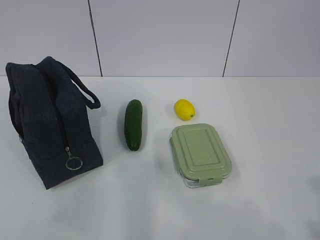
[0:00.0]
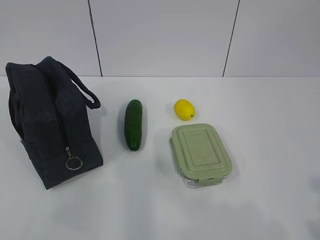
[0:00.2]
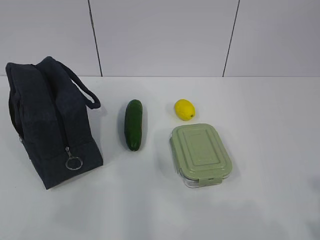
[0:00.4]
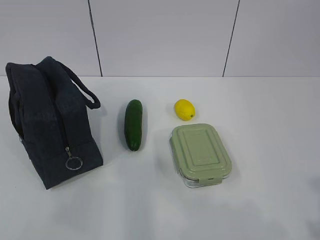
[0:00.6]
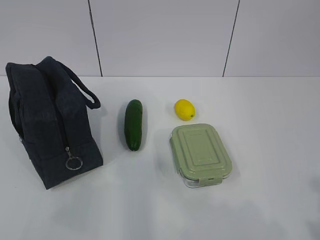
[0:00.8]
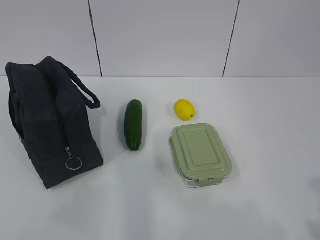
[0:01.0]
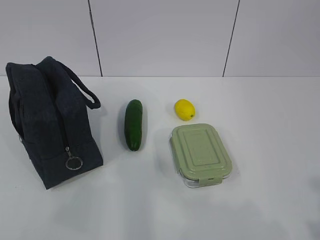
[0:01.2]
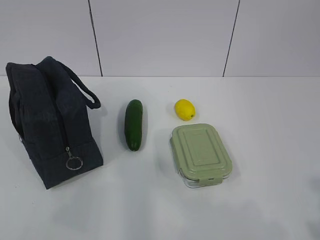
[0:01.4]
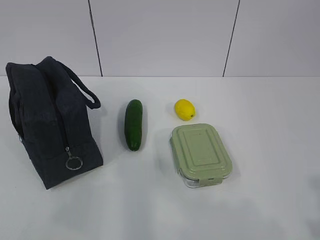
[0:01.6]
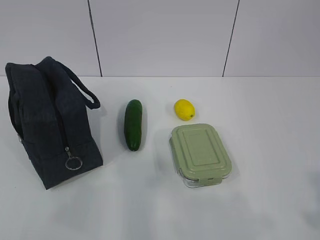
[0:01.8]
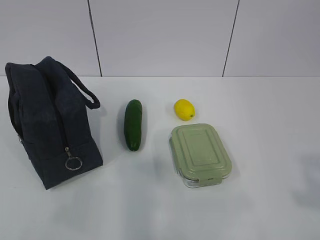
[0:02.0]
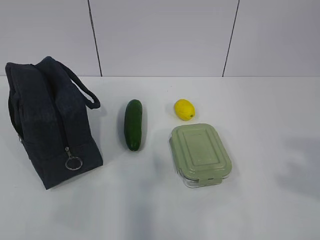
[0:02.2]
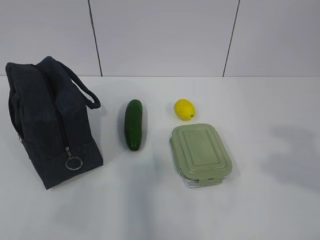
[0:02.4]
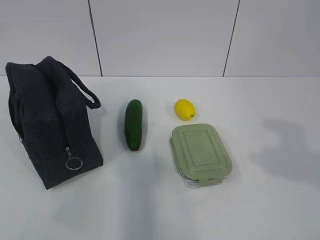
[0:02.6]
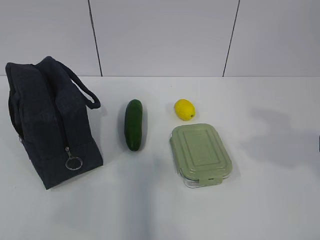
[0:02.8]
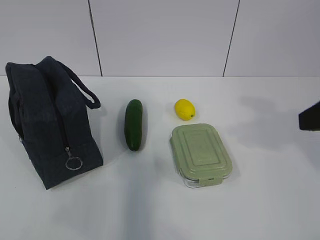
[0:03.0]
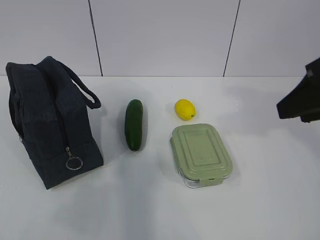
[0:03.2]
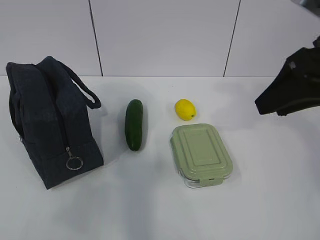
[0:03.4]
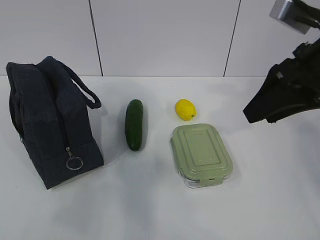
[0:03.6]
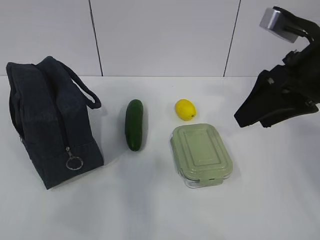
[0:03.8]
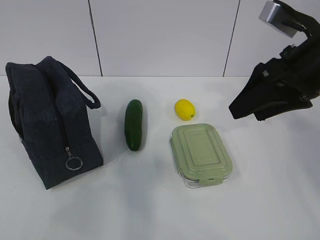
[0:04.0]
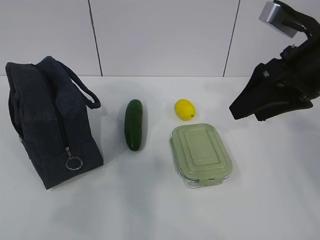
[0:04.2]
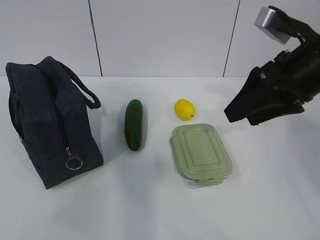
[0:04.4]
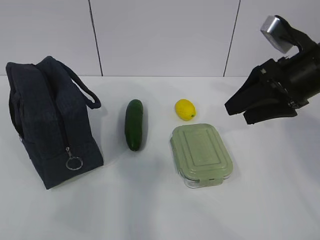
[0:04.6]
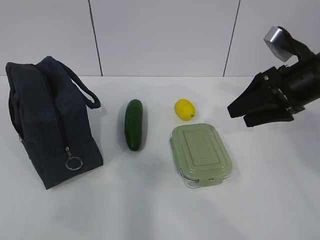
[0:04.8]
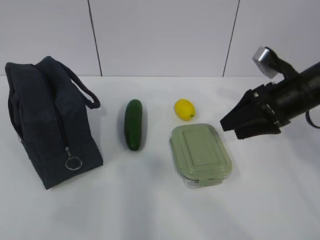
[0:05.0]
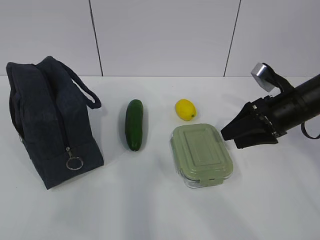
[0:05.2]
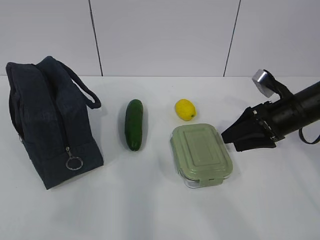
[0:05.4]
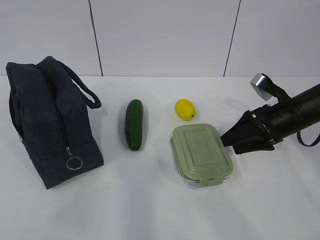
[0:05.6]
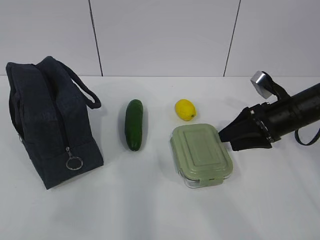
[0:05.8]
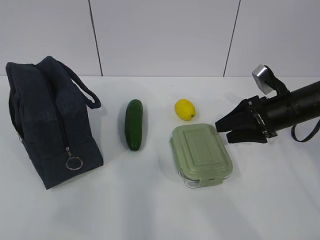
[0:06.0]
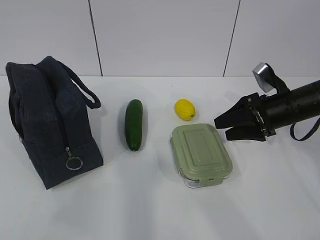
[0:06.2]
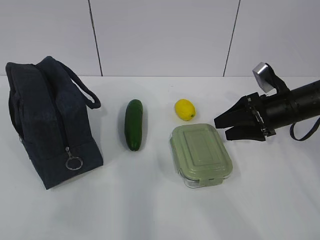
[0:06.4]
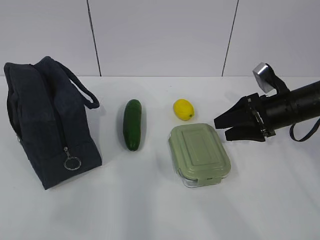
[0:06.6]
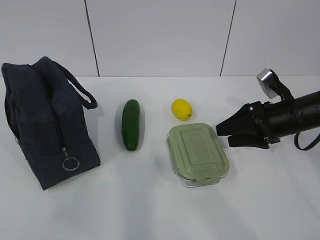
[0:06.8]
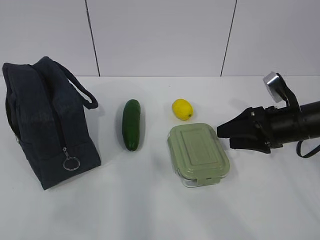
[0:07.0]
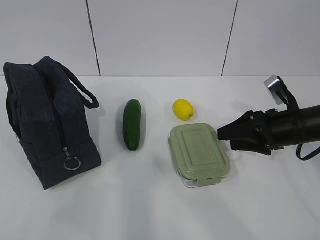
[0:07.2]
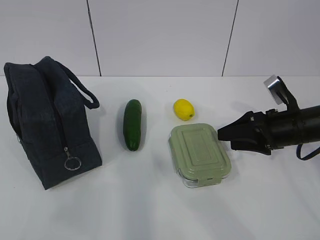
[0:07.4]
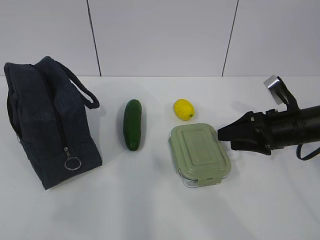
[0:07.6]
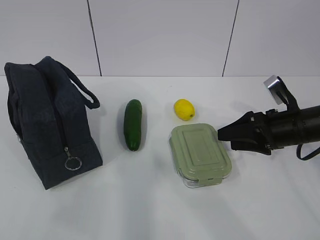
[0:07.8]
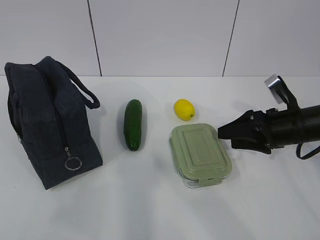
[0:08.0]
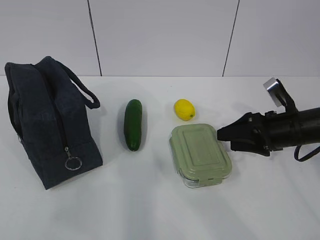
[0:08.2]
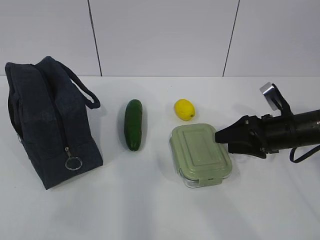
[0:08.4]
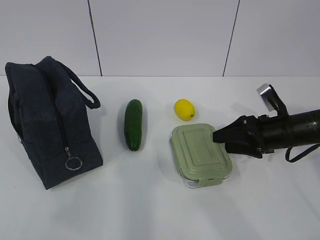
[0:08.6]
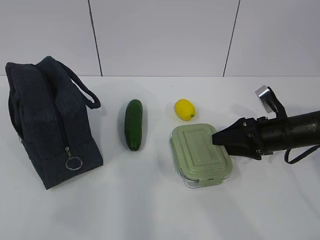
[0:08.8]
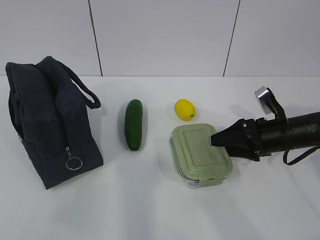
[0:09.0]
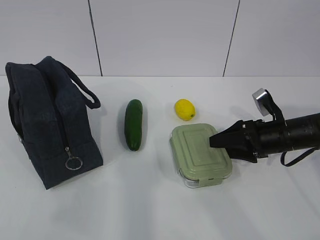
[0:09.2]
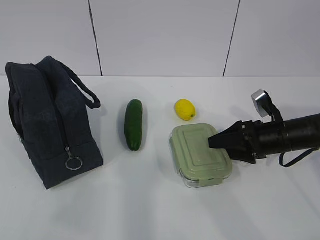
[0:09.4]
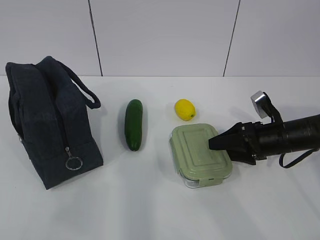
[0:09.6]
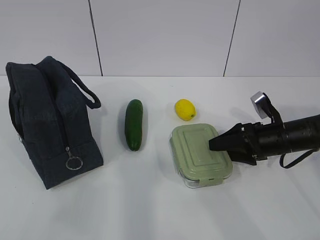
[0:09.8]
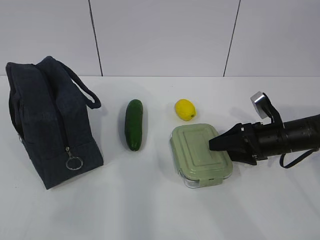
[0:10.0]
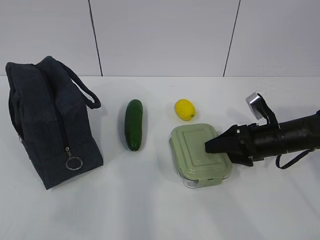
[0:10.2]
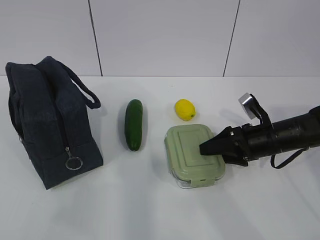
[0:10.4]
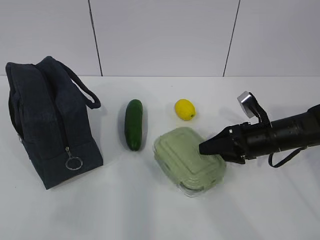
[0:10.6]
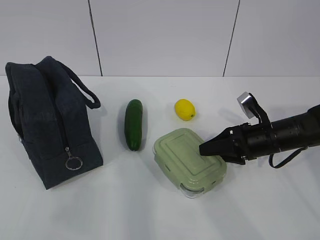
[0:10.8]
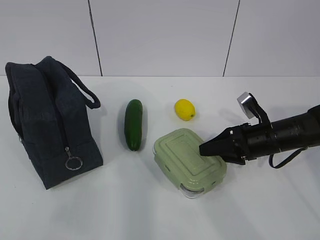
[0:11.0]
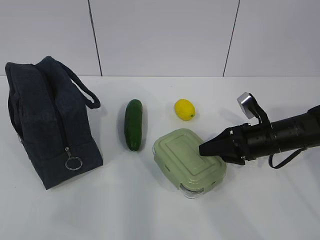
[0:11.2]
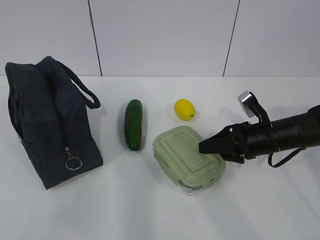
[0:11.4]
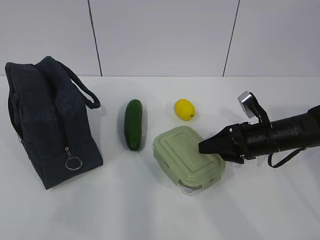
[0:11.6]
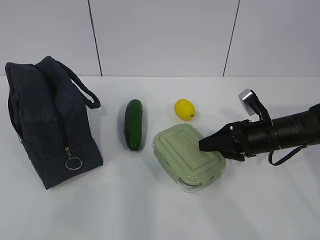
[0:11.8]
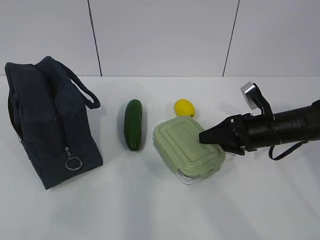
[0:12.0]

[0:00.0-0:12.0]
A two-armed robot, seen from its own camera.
Step, 0:00.0 to 0:09.2: Grab the lunch box with your right hand.
0:01.6 to 0:03.0: The right gripper goes approximately 20 cm forward.
0:03.0 to 0:04.4: The right gripper heads forward, covering some 10 cm.
0:04.4 to 0:06.0: The right gripper shifts roughly 15 cm downward and forward.
0:06.0 to 0:09.0: The grippers stay close to where they were, moving slightly.
0:09.0 to 0:12.0: The grippers make only small movements.

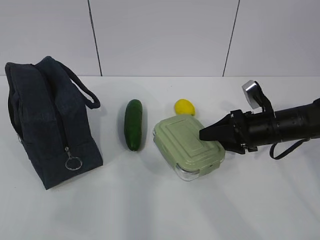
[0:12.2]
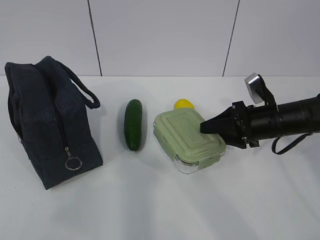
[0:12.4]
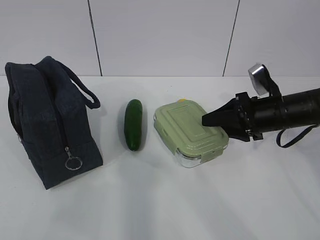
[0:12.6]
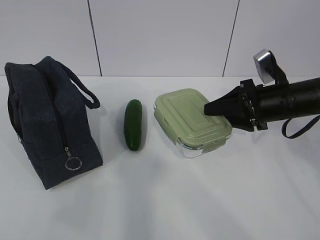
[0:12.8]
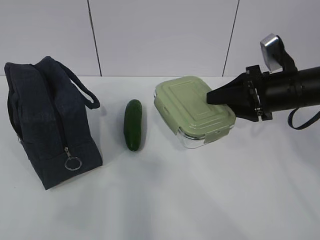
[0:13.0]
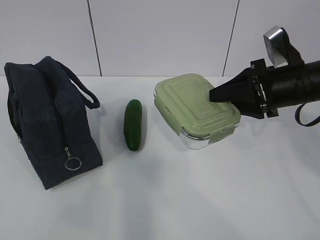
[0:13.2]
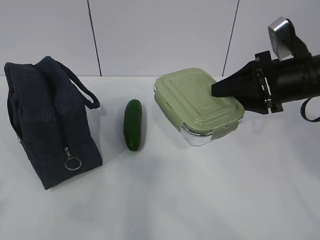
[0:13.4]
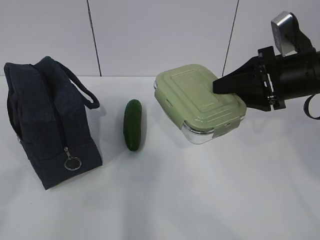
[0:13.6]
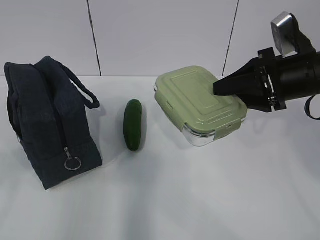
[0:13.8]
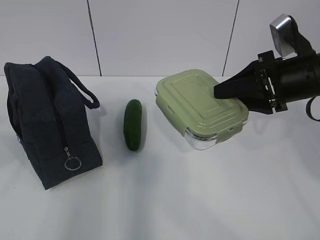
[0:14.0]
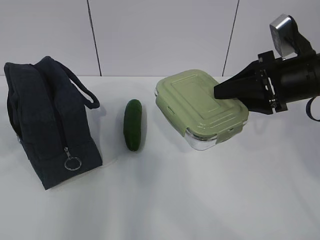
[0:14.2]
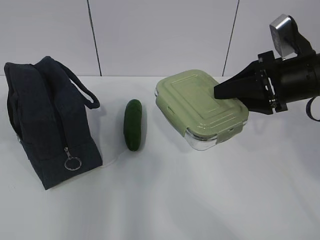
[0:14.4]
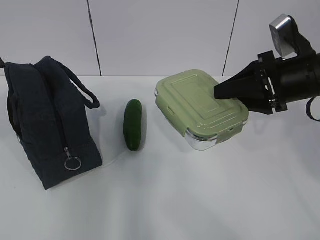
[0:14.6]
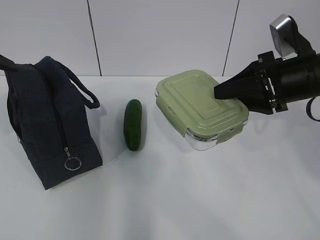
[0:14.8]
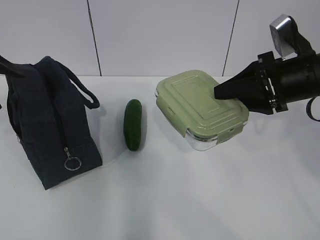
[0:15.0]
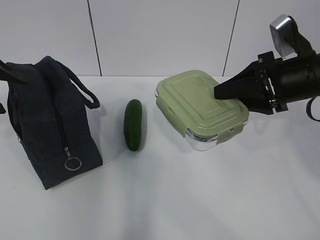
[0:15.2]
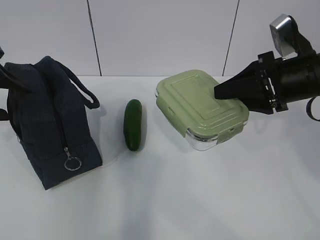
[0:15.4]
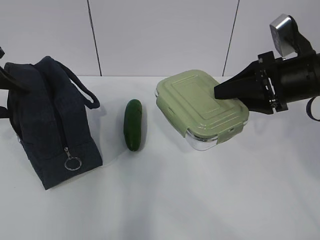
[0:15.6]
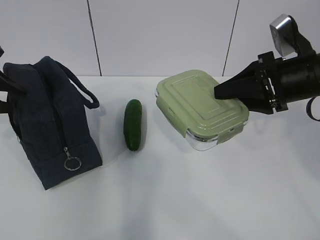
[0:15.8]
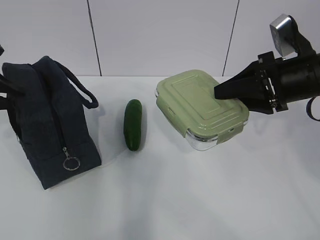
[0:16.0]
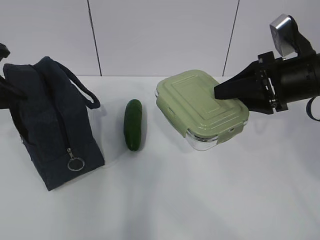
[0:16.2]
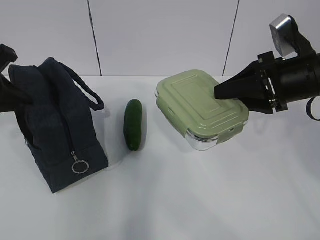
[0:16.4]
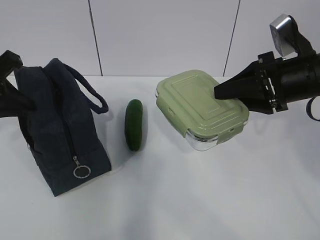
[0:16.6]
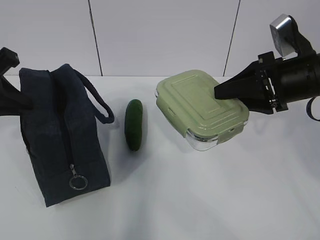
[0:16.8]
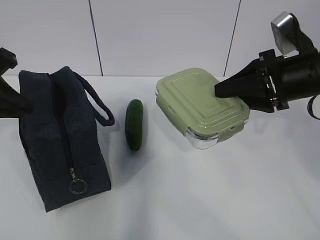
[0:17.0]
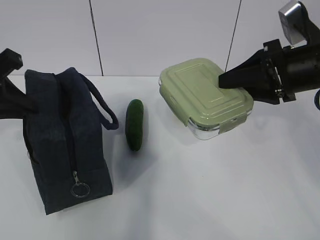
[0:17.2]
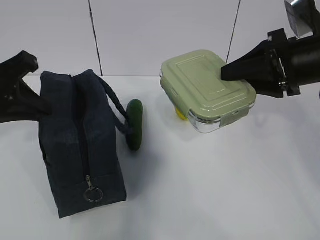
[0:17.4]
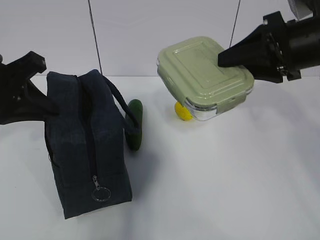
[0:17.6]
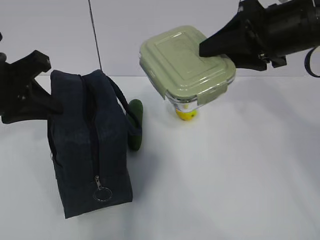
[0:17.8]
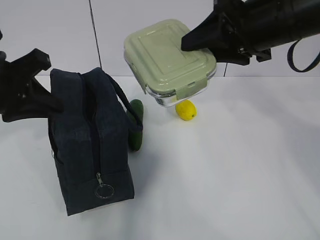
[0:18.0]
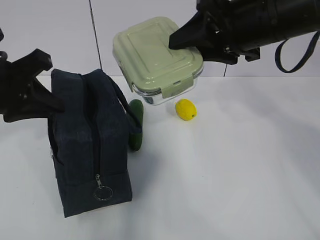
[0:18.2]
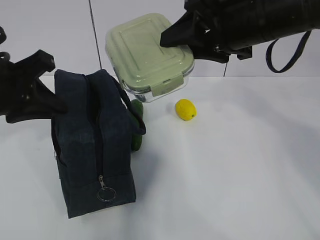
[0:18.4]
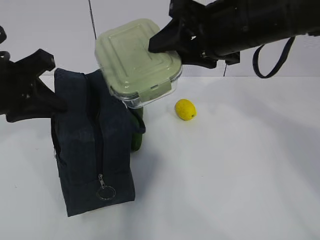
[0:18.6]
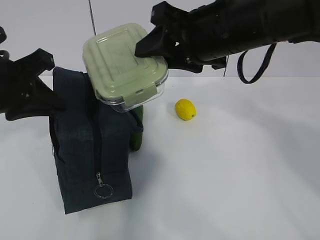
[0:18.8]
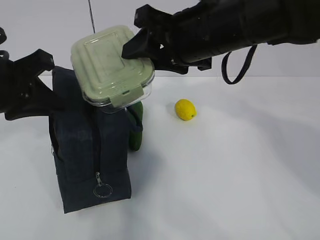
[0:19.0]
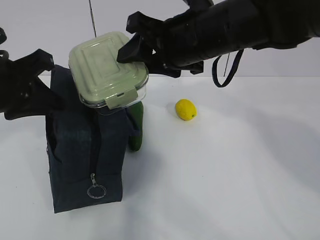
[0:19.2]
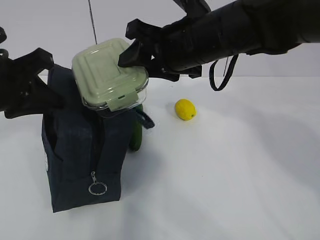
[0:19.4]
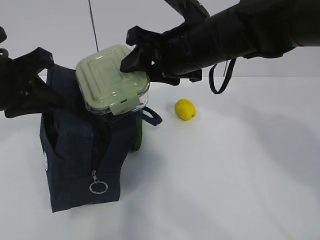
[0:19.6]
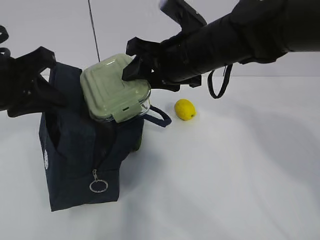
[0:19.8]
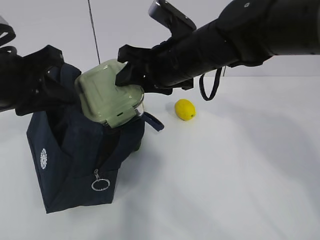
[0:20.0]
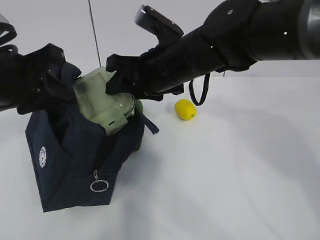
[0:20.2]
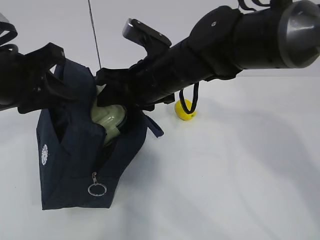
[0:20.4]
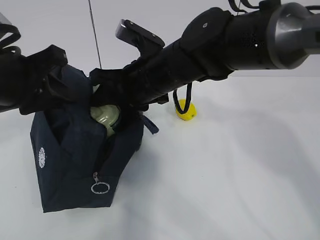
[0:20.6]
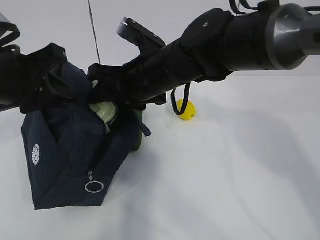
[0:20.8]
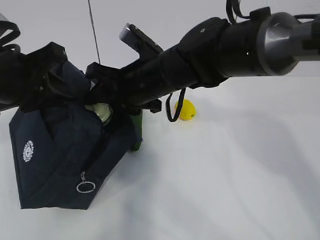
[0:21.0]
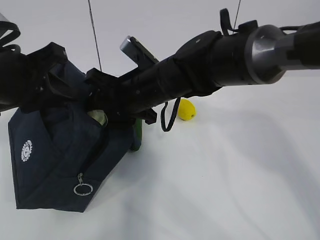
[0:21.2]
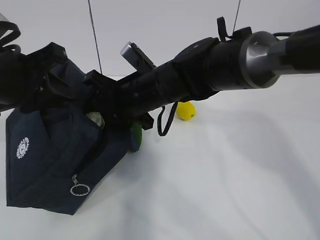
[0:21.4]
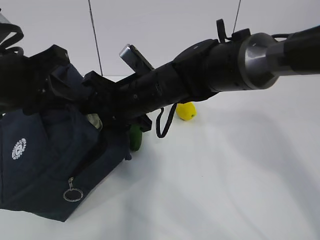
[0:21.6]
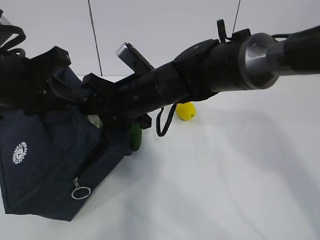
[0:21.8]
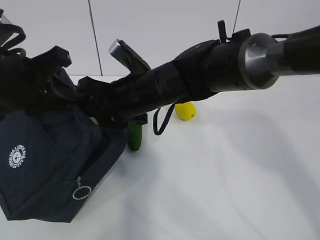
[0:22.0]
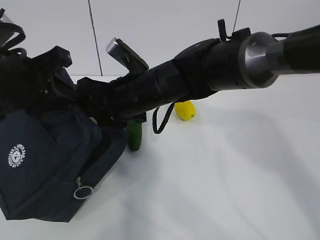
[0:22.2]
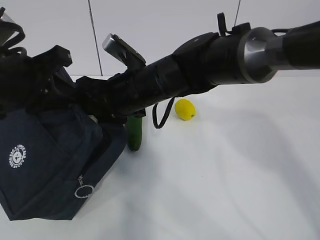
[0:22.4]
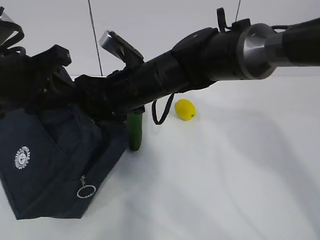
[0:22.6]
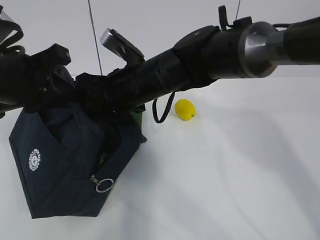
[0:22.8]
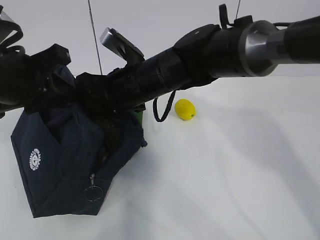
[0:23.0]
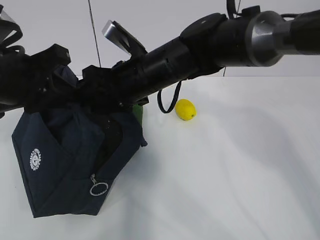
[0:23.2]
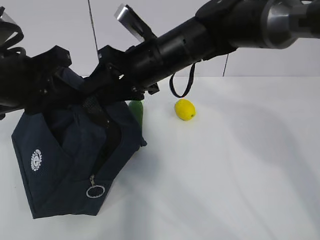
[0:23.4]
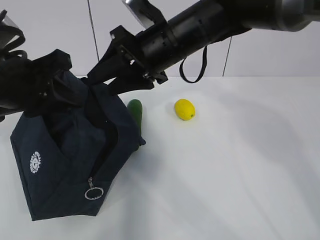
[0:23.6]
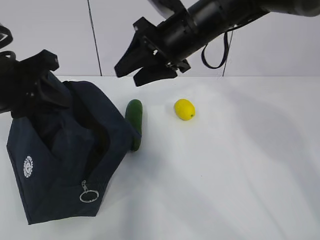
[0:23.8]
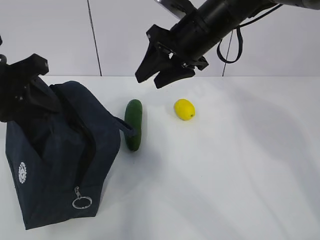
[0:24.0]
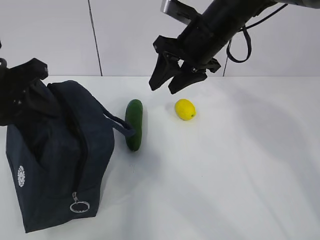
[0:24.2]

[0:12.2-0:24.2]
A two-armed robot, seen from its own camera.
Step, 0:12.2 to 0:15.8: Grab the lunch bag with your left hand.
Step, 0:16.0 to 0:18.8: Place it into the bag with your right hand.
Step, 0:19.0 to 0:23.6: Grab the cucumber with your right hand.
0:12.2 to 0:13.8: The left gripper moves forward, some 5 cm, and opens up, while the right gripper heads upward, covering some 15 cm.
0:13.8 to 0:15.2: The left gripper shifts roughly 20 cm forward.
0:15.2 to 0:16.6: The left gripper closes its fingers.
0:16.6 to 0:18.2: The left gripper is displaced to the right by some 5 cm; the right gripper travels to the left and upward by about 10 cm.
0:18.2 to 0:19.8: The right gripper moves to the left and downward, some 10 cm.
0:19.8 to 0:21.2: The right gripper travels to the left and downward by roughly 10 cm.
0:22.6 to 0:24.2: The right gripper moves to the right, upward and forward, approximately 15 cm.
